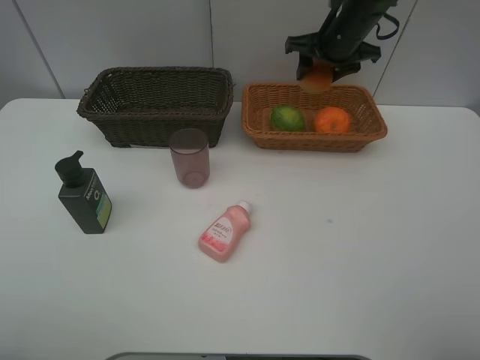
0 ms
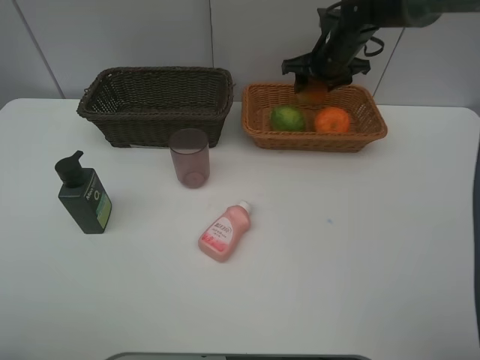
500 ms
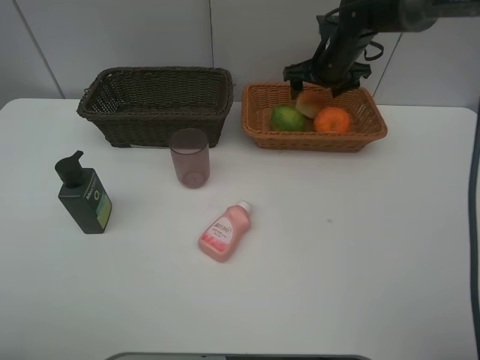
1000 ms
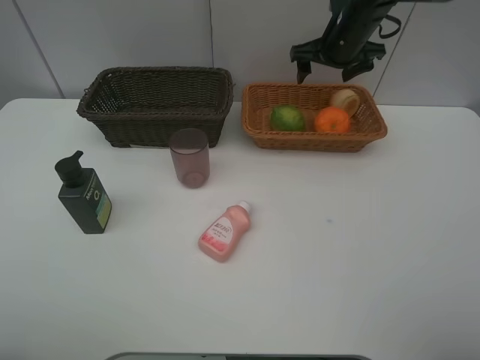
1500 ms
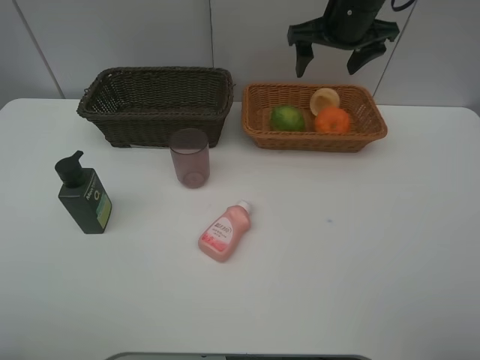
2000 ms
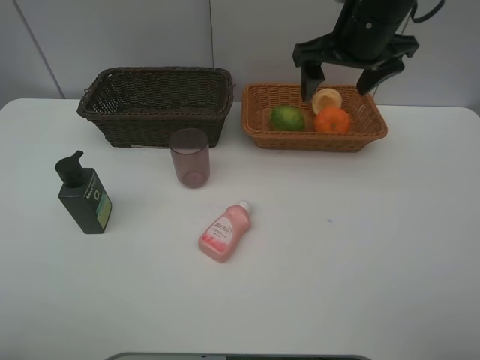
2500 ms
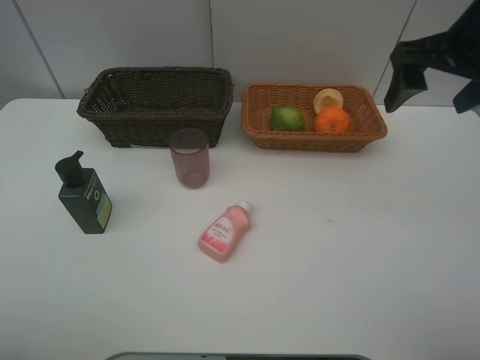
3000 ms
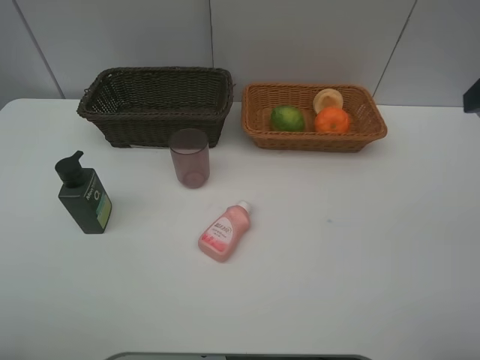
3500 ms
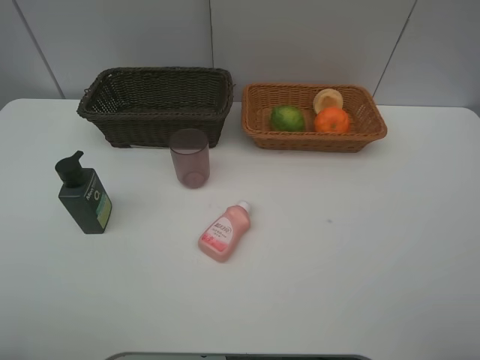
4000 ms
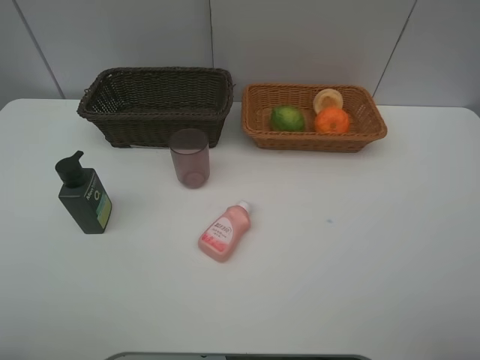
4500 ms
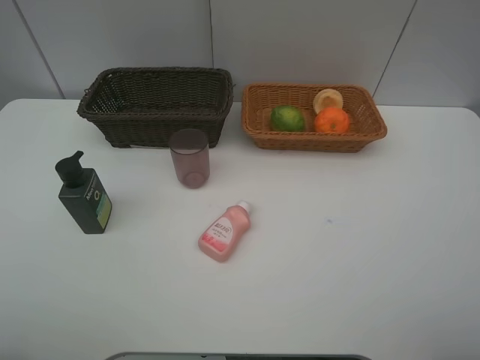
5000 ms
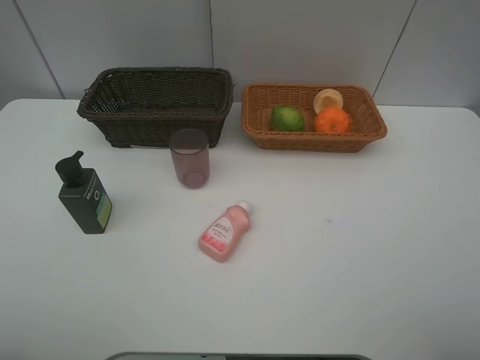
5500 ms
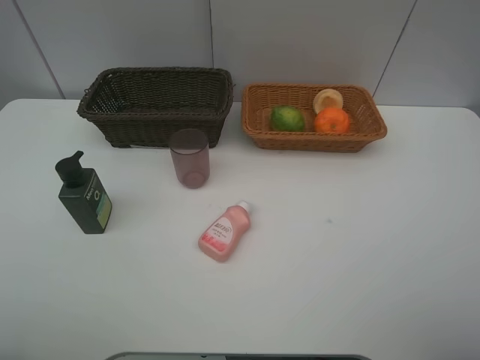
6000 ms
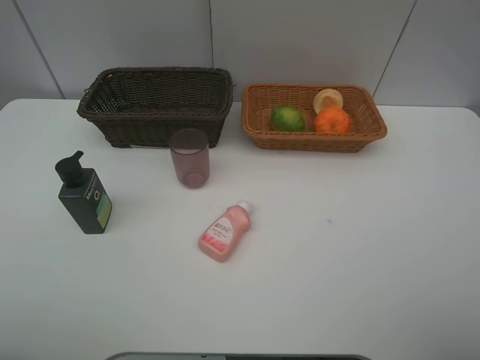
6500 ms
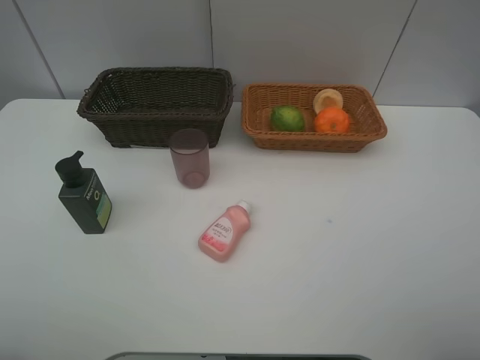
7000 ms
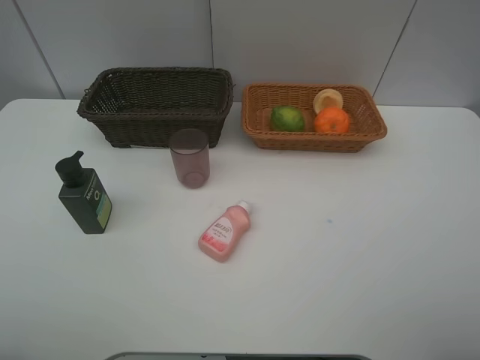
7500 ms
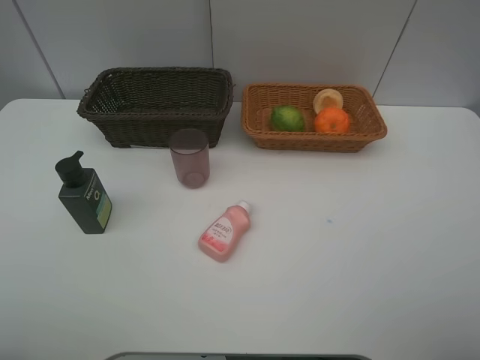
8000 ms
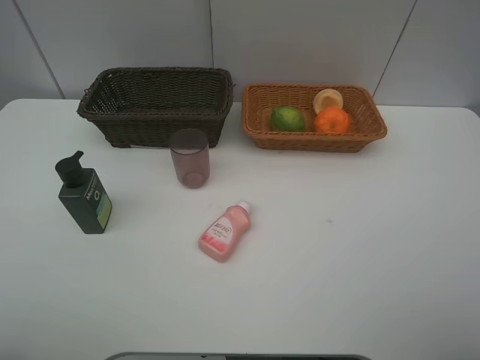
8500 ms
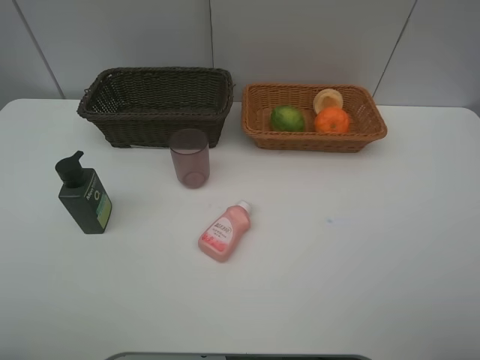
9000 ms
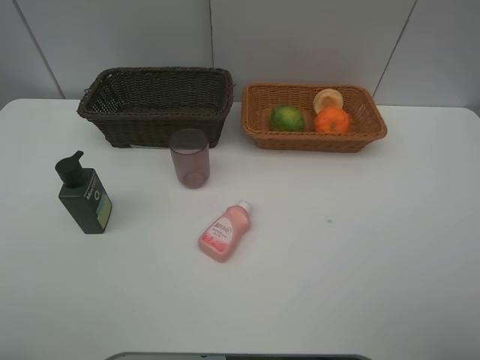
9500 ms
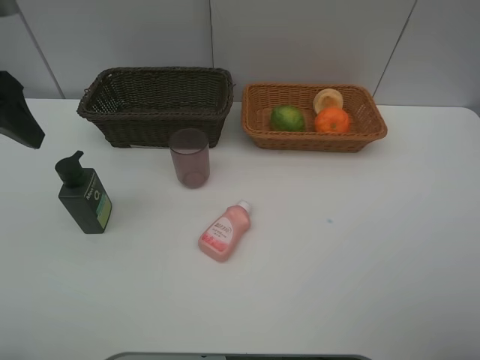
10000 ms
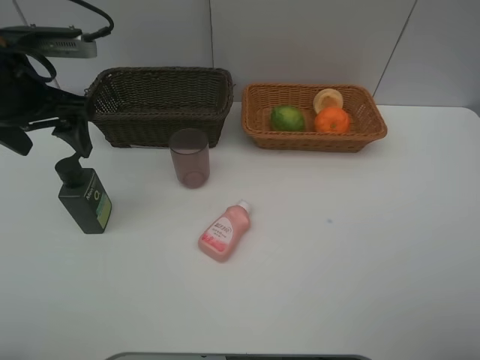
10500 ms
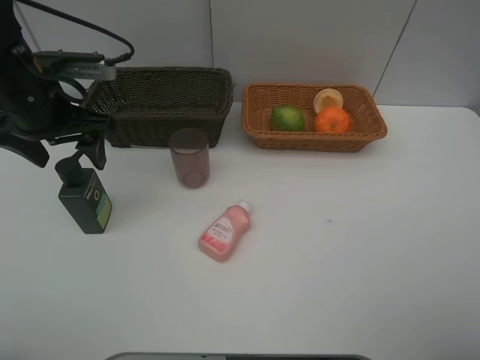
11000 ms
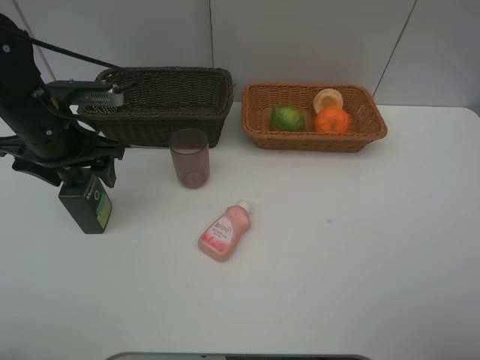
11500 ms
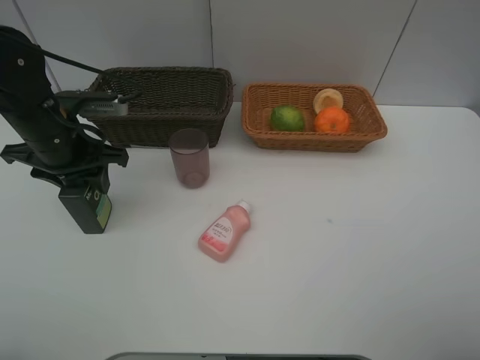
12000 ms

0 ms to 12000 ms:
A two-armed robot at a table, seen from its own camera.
Task of the whole recording: place multiple objects separately in different baskets.
0 ms to 2000 ms: The right gripper goes some 5 cm upward, and opens.
2000 ms to 4000 ms: The right gripper moves backward and to the right, about 40 cm.
8000 ms to 10000 ms: The left gripper moves forward, approximately 25 cm.
10000 ms to 12000 ms: The left gripper moves downward and forward, approximately 15 cm, and closes.

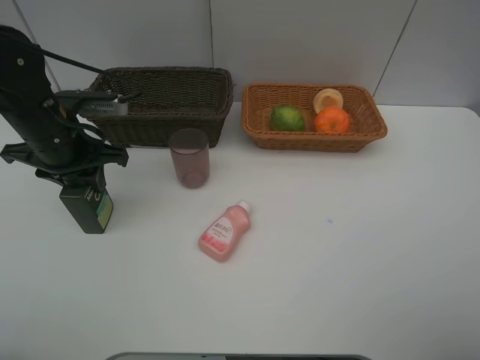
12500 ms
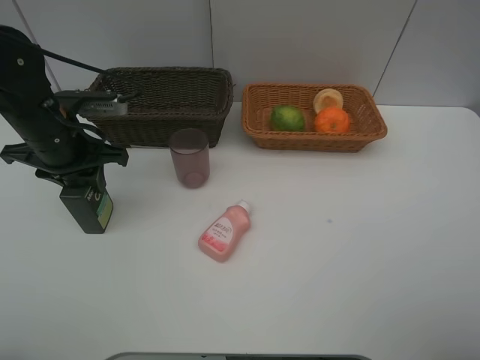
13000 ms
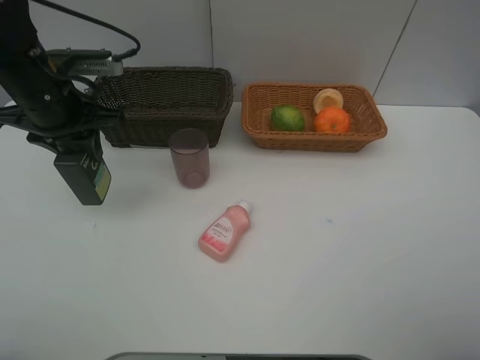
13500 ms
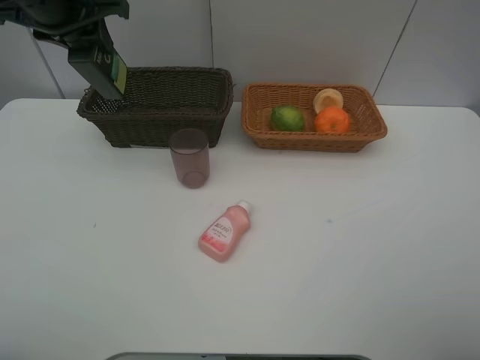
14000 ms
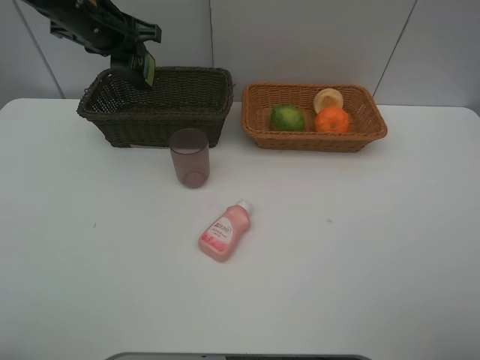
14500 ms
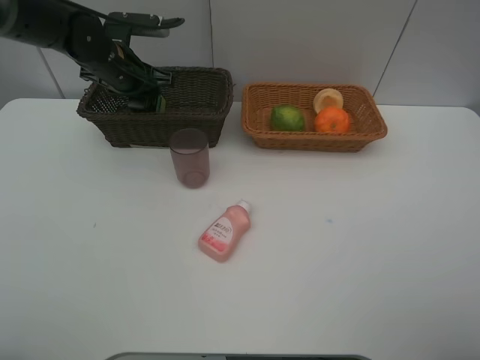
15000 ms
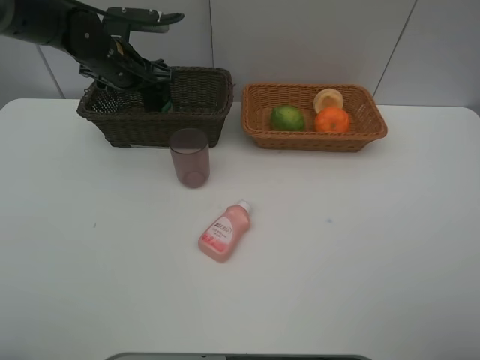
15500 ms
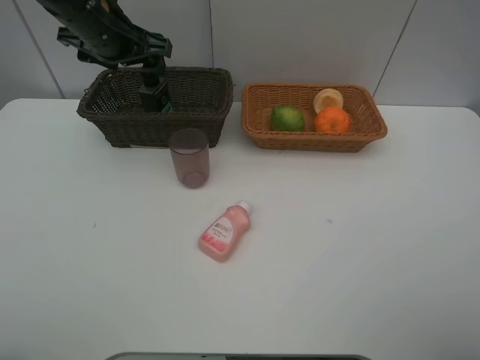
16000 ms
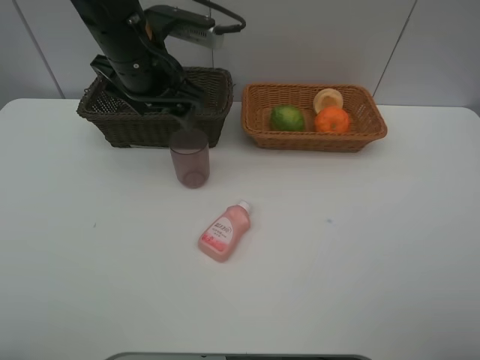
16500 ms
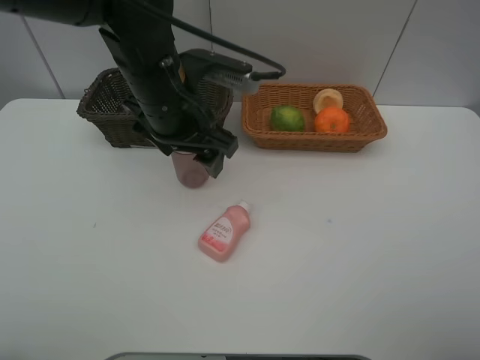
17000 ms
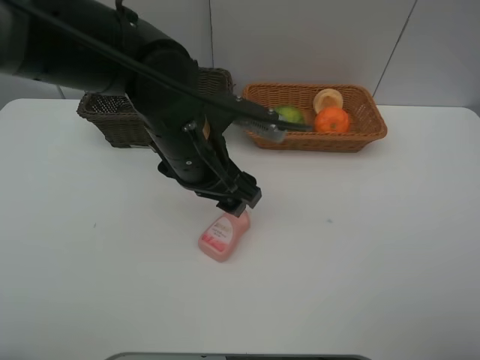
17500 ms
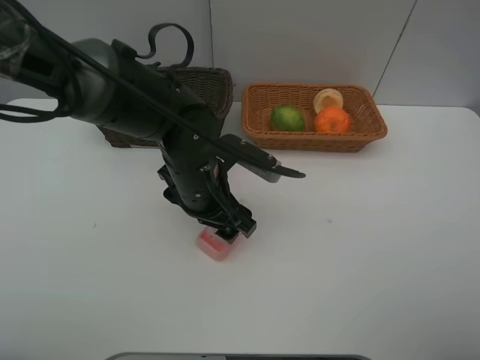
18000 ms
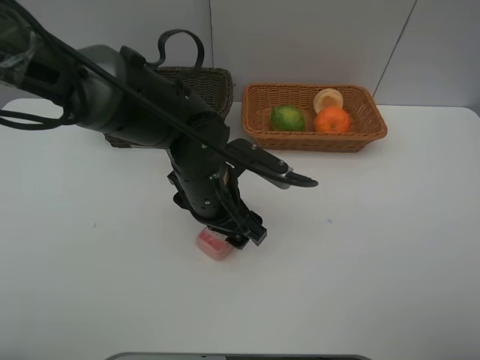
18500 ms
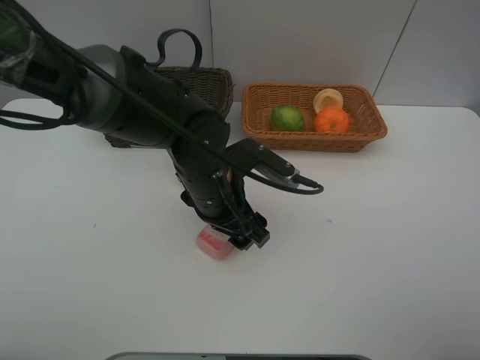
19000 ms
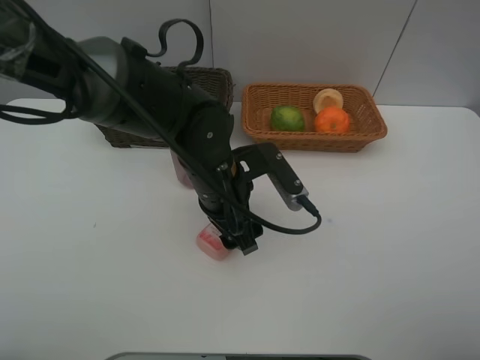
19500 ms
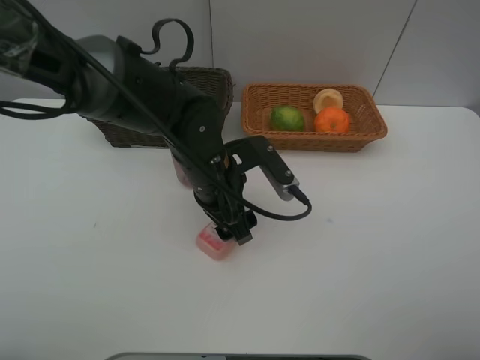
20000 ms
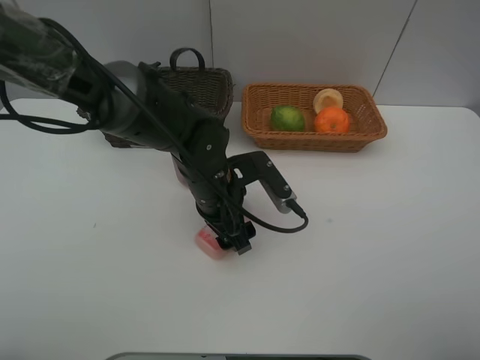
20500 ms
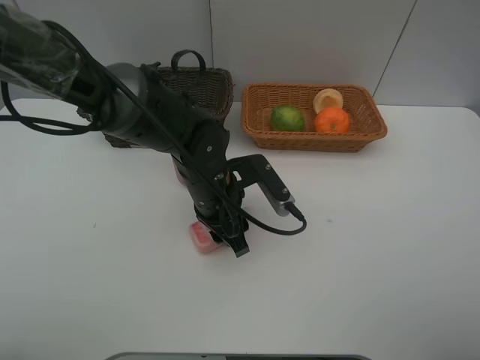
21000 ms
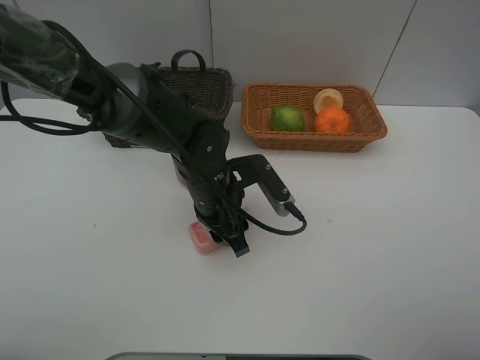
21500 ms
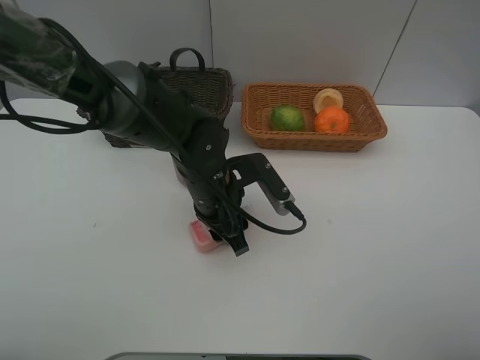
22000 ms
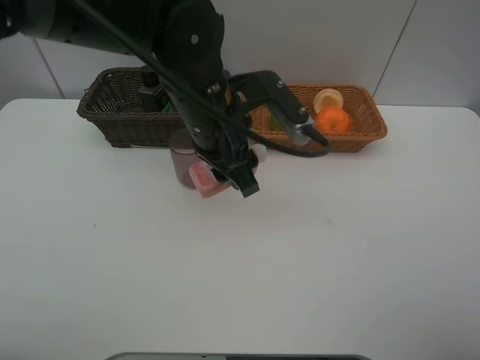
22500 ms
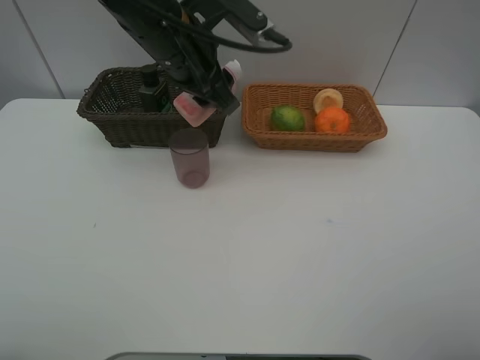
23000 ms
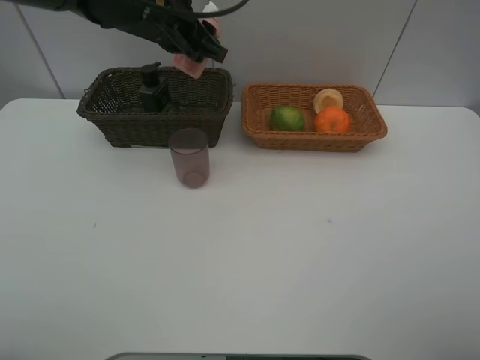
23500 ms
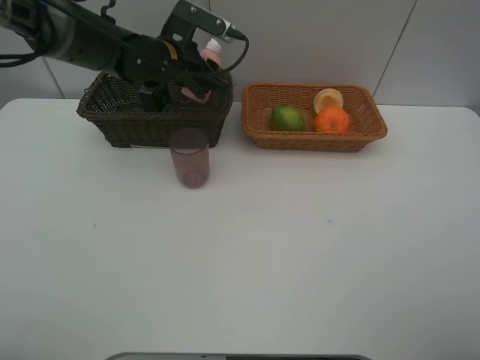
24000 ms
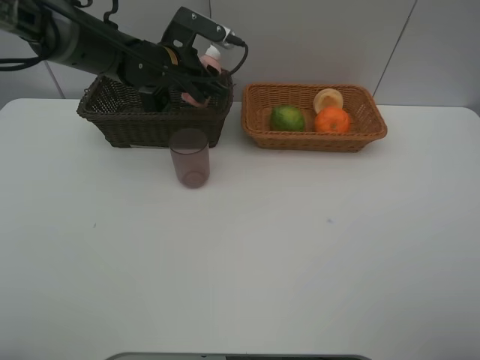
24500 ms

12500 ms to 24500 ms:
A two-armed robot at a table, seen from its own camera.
Task of the whole recording: place multiple objects separately in different baskets.
Step, 13500 ms to 15500 ms: Place the facial cleanser in the dark basket with left gripper.
Step, 16000 ms to 22000 ms: Pick up the laundry detergent with left gripper.
12500 ms to 14500 ms: The left gripper heads forward and upward, covering about 15 cm.
14500 ms to 16500 ms: The left gripper shifts roughly 15 cm backward and to the right, and opens.
16500 ms to 18500 ms: The left gripper shifts about 15 cm downward, backward and to the right.
20500 ms to 22500 ms: The left gripper is displaced upward by some 10 cm, and closes.
22500 ms to 24500 ms: The left gripper is displaced forward and to the left by some 20 cm.

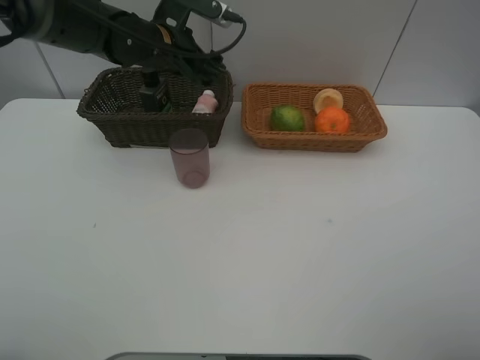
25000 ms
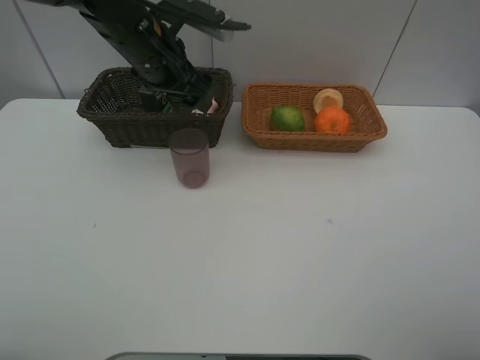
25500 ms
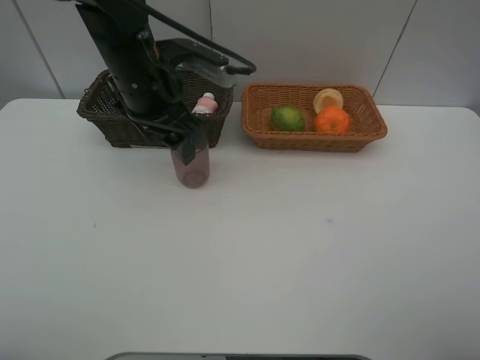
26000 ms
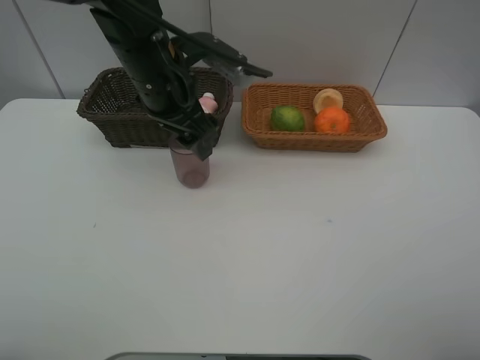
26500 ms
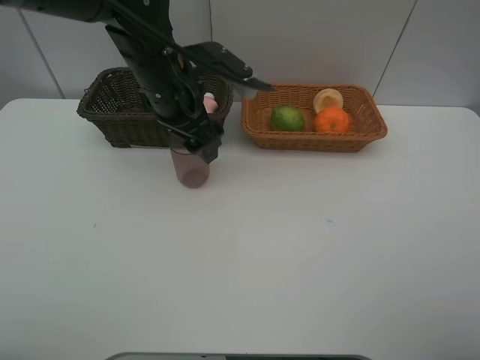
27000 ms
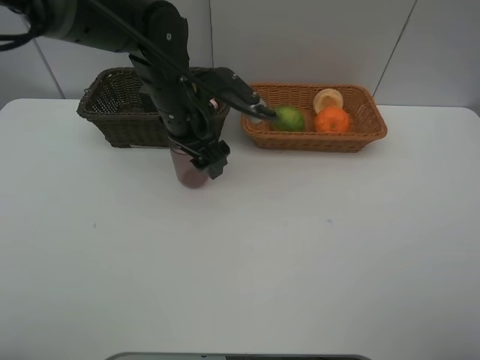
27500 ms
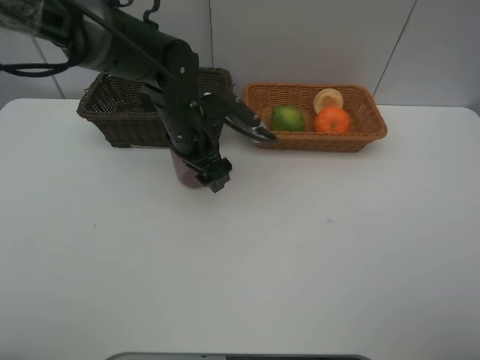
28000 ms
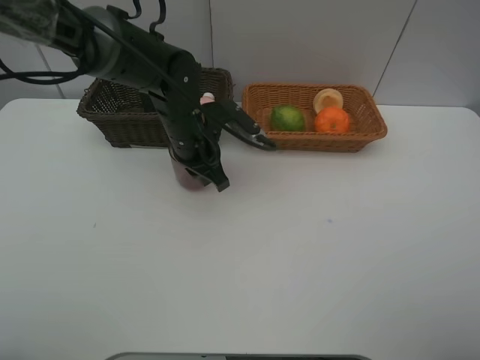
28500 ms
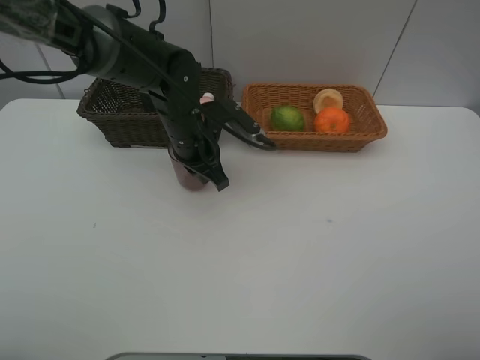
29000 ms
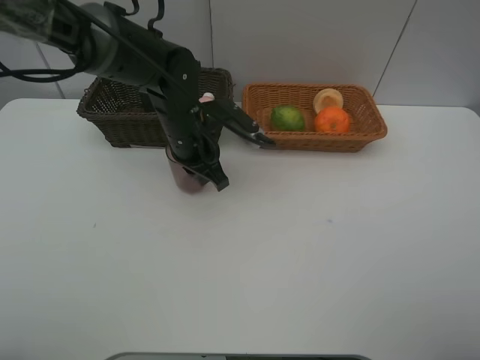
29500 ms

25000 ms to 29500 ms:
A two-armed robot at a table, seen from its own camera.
Task of the whole recording: place multiple objects separately in different baskets.
25000 ms to 27000 ms: The left gripper heads backward, covering some 10 cm.
27000 ms to 29500 ms: The left gripper goes some 10 cm downward, and closes up.
